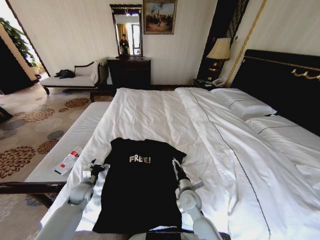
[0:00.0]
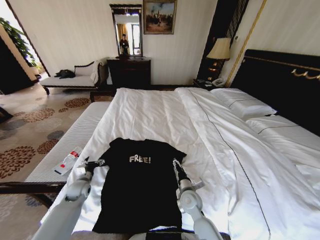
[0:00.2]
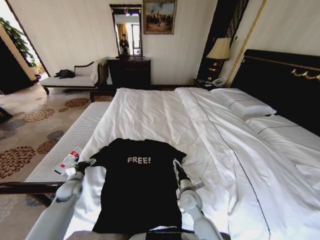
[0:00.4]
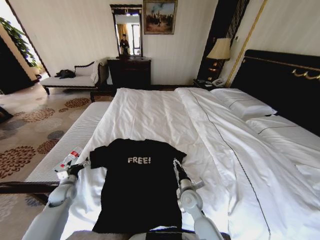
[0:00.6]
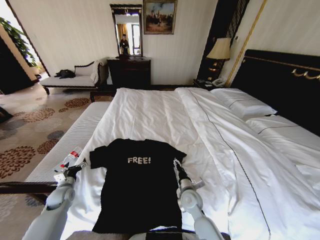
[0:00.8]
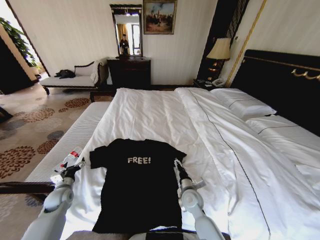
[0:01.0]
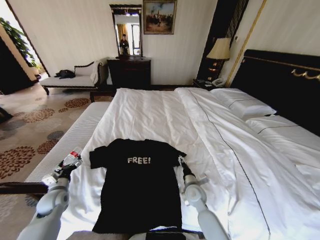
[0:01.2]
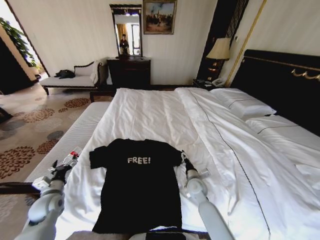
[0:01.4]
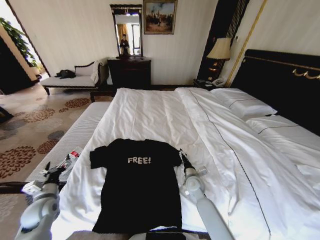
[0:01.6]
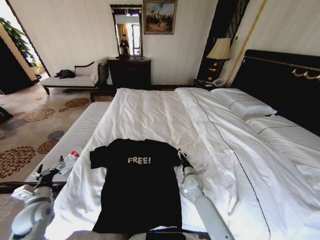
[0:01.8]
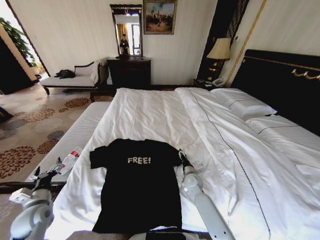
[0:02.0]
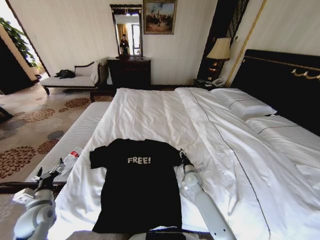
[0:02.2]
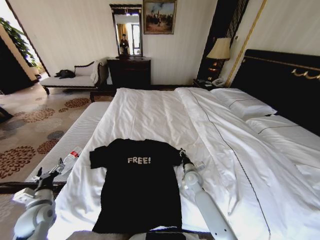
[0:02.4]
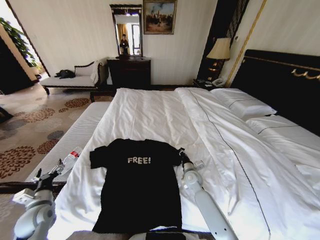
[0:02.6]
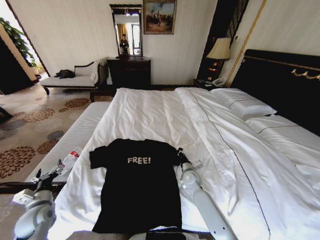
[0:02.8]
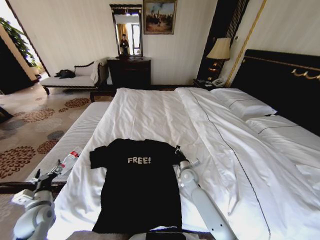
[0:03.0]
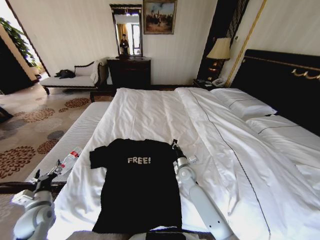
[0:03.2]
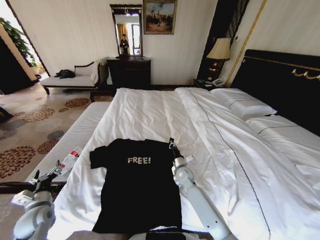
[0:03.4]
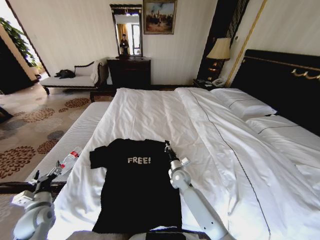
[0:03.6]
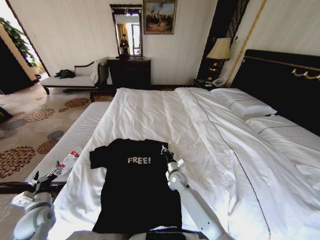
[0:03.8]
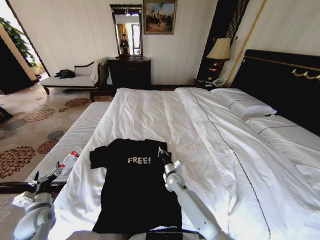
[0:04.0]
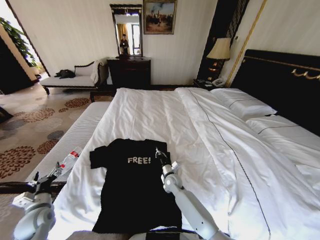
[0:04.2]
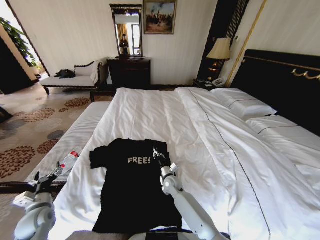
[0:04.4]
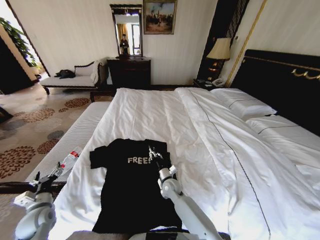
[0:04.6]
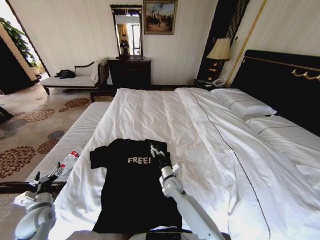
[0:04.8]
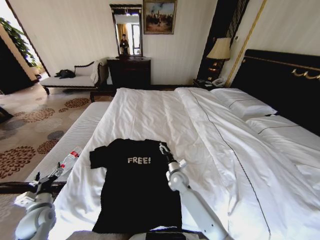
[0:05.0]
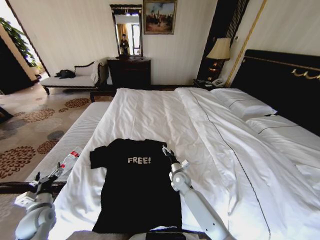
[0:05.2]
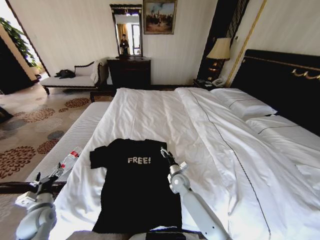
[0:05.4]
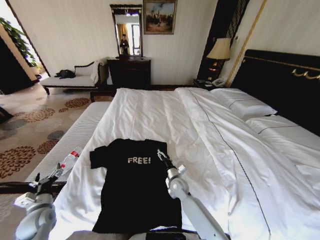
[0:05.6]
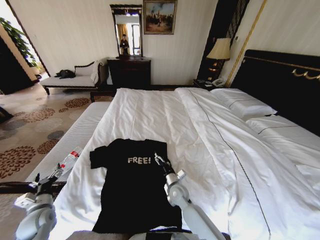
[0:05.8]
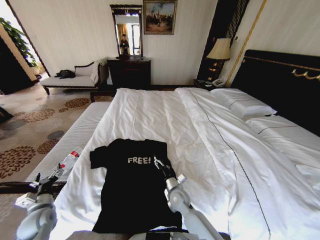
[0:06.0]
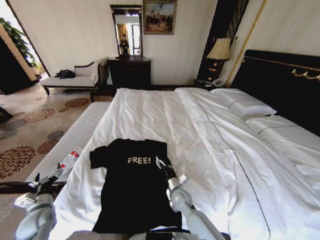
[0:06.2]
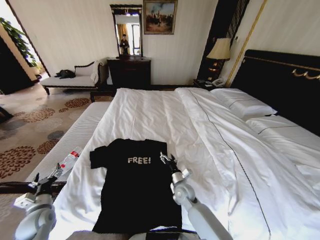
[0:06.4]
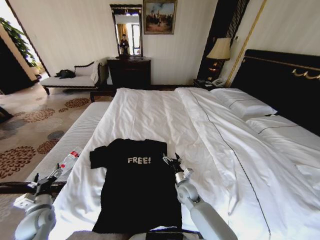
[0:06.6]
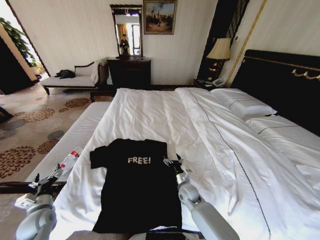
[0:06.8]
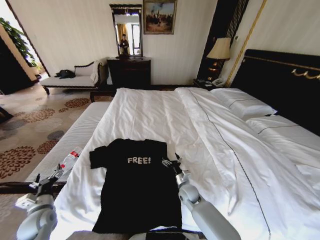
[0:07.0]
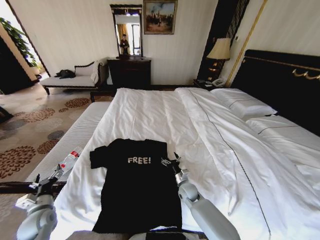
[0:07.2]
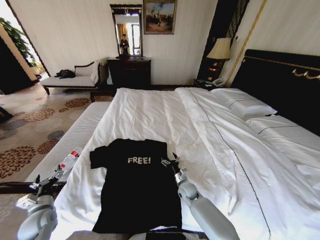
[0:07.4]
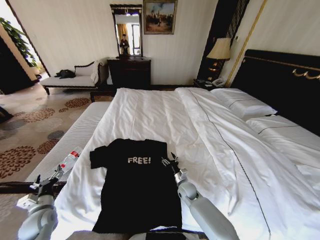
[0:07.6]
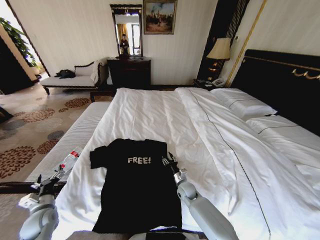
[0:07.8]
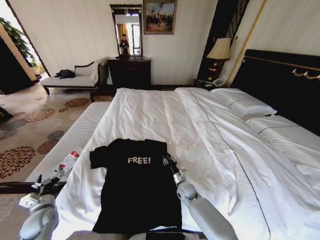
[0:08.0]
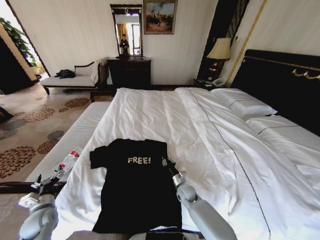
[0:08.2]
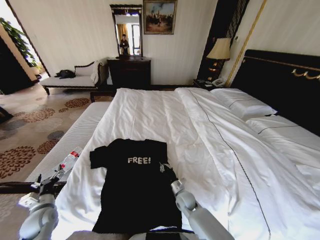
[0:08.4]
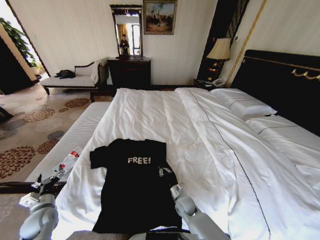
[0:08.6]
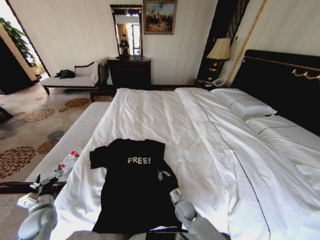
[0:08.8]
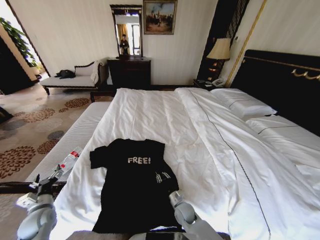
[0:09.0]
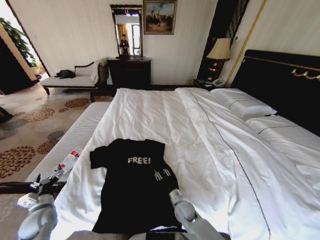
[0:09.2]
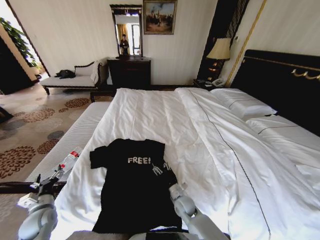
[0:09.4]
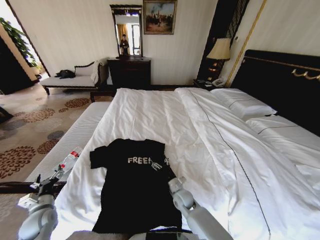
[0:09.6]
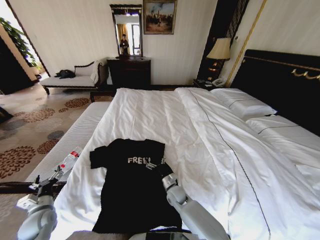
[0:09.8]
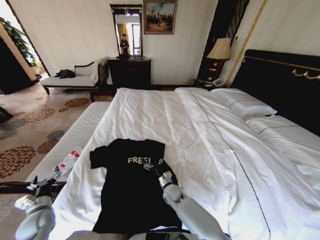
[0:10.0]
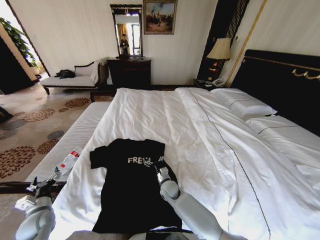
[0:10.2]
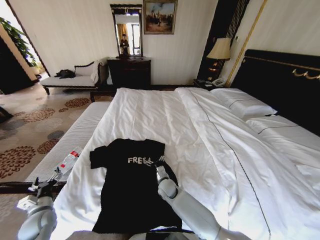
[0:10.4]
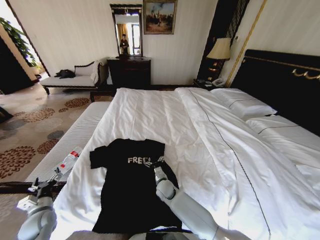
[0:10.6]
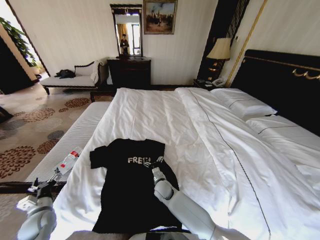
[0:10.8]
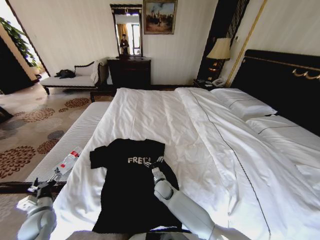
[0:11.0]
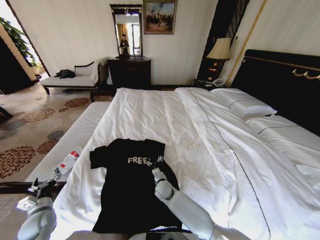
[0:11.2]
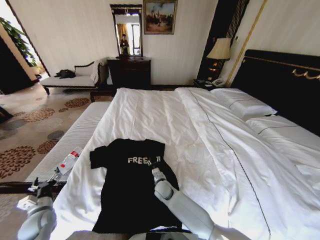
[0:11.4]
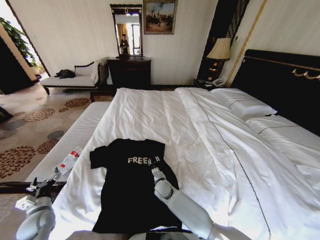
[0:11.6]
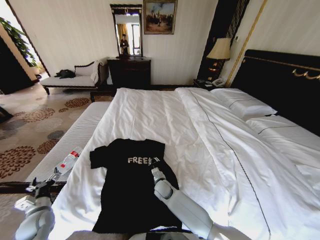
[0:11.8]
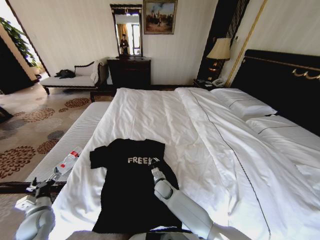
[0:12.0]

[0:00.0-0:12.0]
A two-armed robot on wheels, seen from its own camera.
Task of the whole recording: Fold the clothes on the bed.
0:00.0 to 0:01.6: The right gripper travels forward by approximately 5 cm, while the left gripper is displaced backward, upward and to the left by approximately 15 cm.
0:01.6 to 0:03.0: The right gripper closes its fingers.
0:03.0 to 0:04.4: The right gripper travels to the left and downward by some 10 cm.
0:04.4 to 0:06.0: The right gripper heads backward, covering about 10 cm, and opens up.
0:06.0 to 0:07.6: The right gripper shifts about 10 cm to the right and forward.
0:07.6 to 0:09.0: The right gripper travels backward by some 10 cm, and closes.
0:09.0 to 0:10.4: The right gripper shifts some 15 cm forward, to the left and upward, and opens up.
0:10.4 to 0:12.0: The right gripper closes.

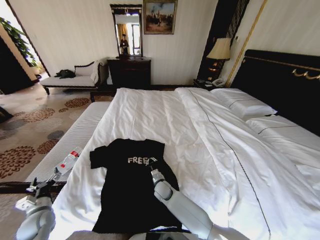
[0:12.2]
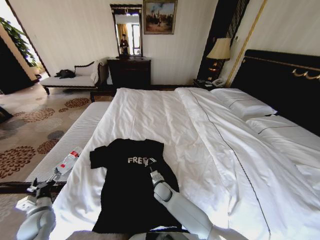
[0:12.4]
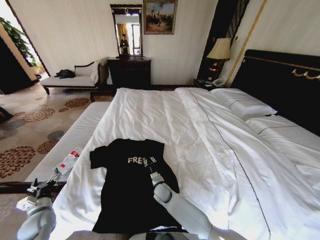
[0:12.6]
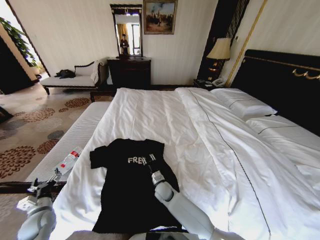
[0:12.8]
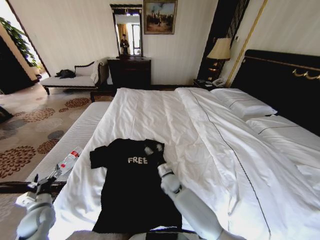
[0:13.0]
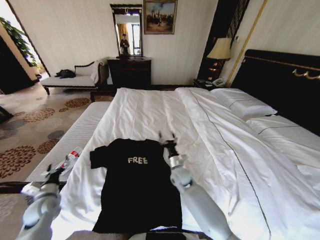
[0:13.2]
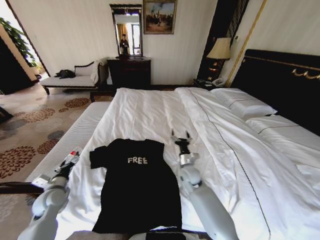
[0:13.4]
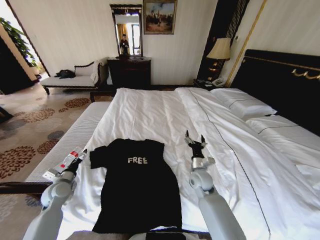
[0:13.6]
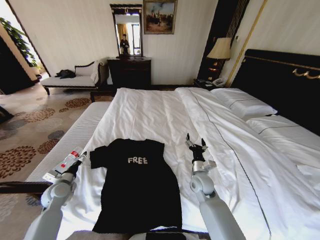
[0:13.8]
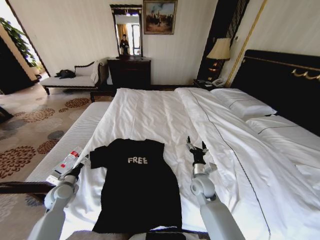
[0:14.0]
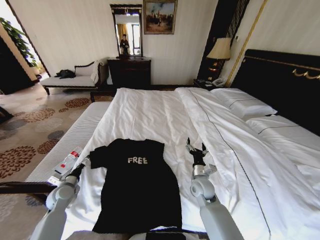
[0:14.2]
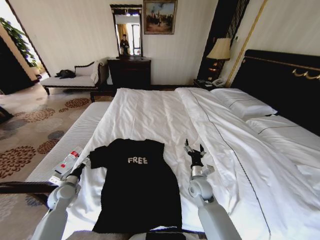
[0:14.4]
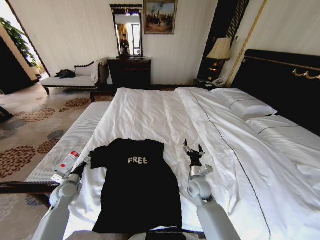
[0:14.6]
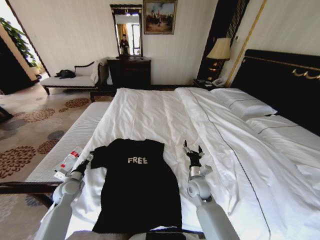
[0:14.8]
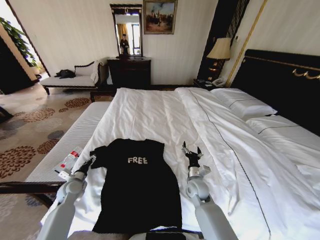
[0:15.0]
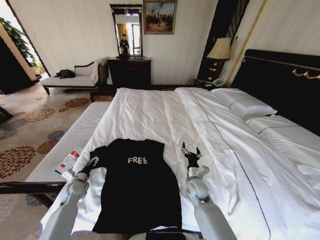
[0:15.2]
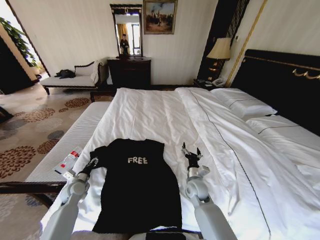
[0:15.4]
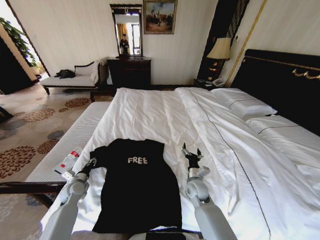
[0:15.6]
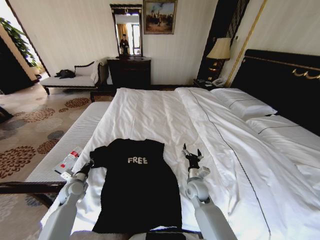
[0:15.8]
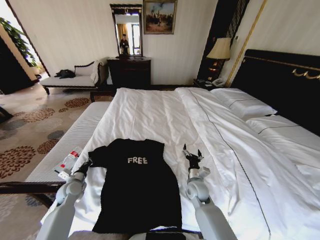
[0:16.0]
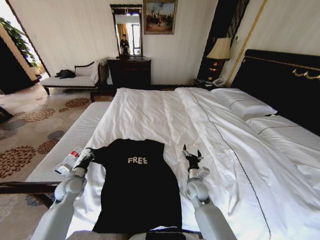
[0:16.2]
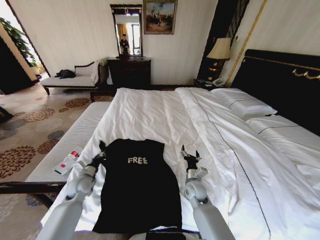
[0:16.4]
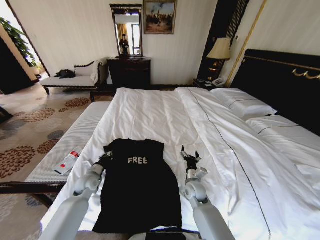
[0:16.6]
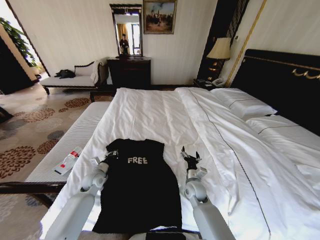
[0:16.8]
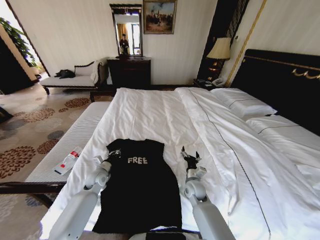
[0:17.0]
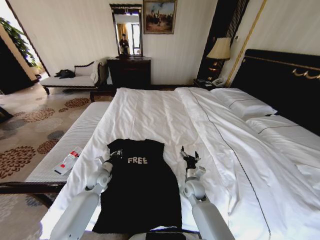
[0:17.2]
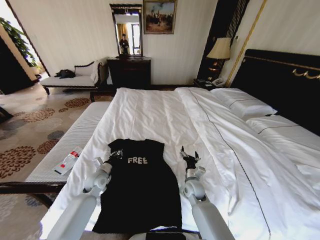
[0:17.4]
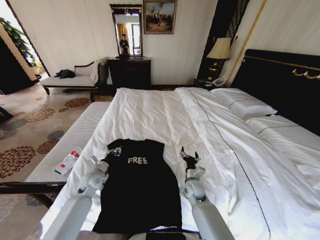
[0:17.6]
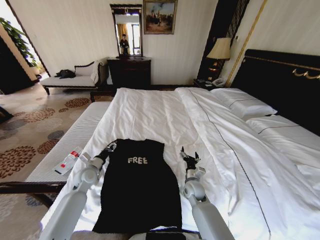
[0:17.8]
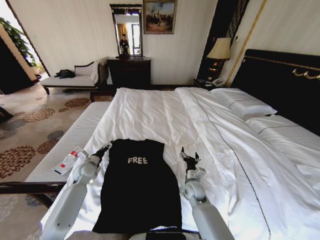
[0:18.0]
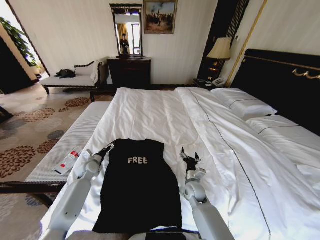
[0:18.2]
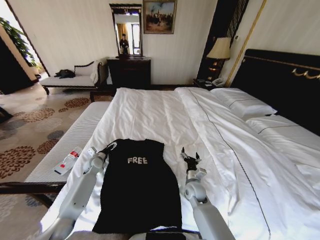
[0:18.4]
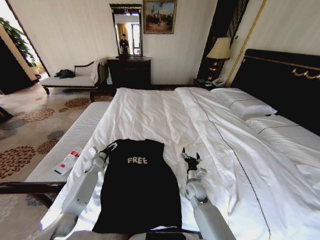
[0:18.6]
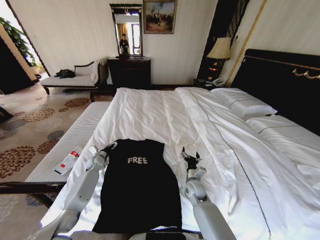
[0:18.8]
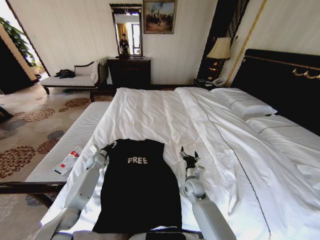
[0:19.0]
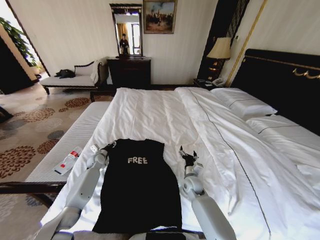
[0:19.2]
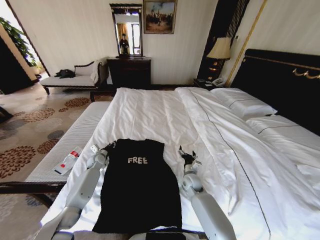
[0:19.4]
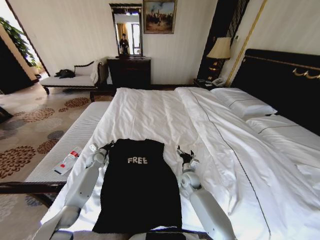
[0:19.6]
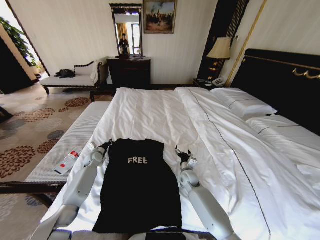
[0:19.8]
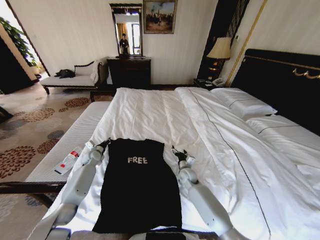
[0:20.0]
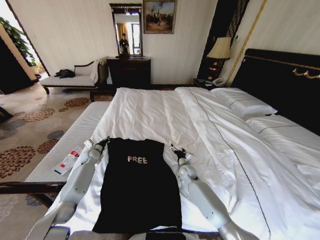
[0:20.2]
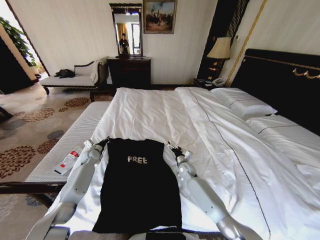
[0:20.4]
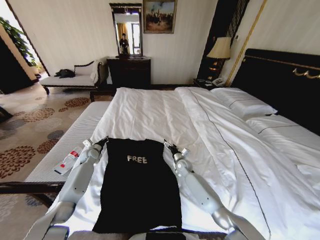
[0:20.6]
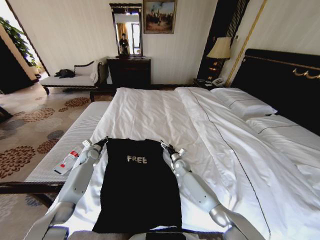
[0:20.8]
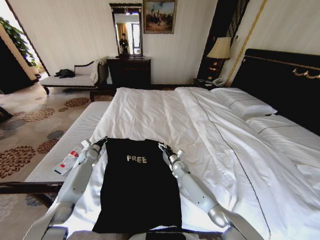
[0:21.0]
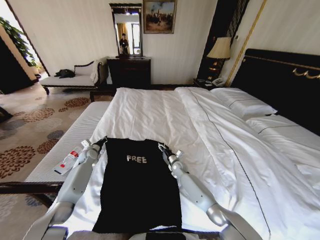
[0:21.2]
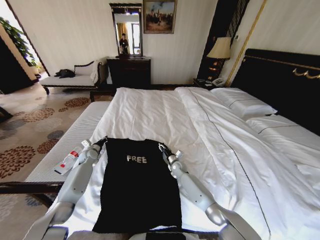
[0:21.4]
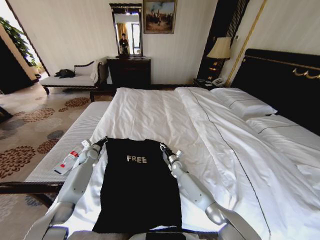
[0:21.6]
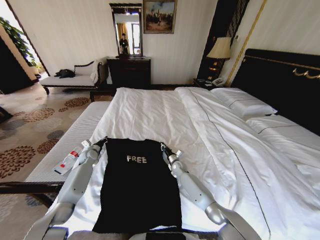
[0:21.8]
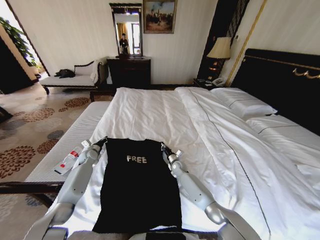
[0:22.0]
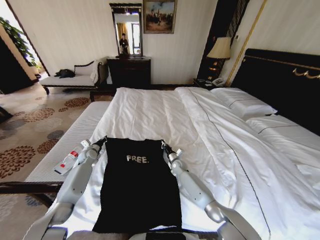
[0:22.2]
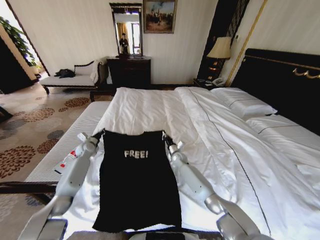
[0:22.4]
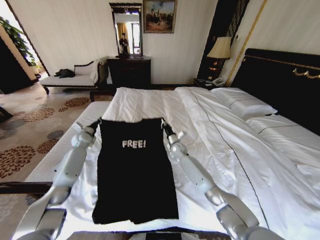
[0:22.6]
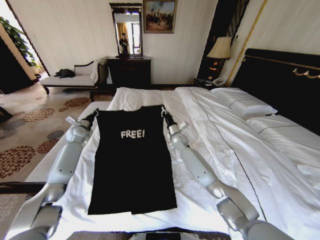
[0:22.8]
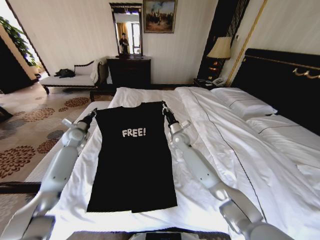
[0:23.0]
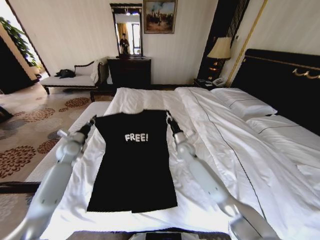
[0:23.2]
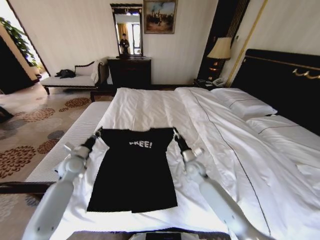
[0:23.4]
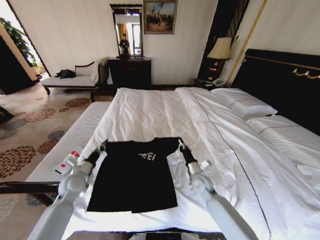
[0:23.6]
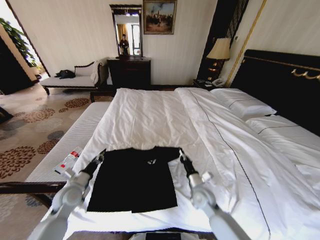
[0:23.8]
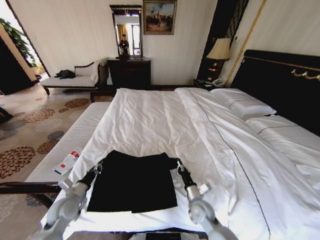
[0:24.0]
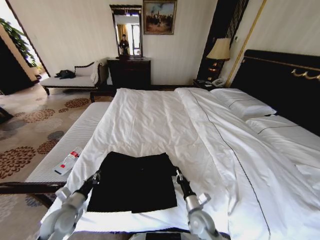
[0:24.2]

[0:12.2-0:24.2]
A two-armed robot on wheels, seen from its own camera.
Task of the whole recording: Fold the clothes on the bed.
0:12.2 to 0:13.8: The left gripper shifts some 10 cm forward. The right gripper goes some 20 cm to the right and upward, and opens.
0:13.8 to 0:15.2: The left gripper moves approximately 5 cm.
0:15.2 to 0:16.6: The left gripper shifts approximately 5 cm to the right, and closes its fingers.
0:16.6 to 0:18.2: The left gripper moves forward, some 10 cm, and opens its fingers.
0:18.2 to 0:19.8: Both grippers travel together forward, approximately 5 cm. The left gripper closes.
0:19.8 to 0:21.2: The right gripper goes approximately 10 cm forward.
0:21.2 to 0:22.6: The left gripper moves upward, roughly 10 cm, while the right gripper goes roughly 15 cm upward and forward, and closes up.
0:22.6 to 0:24.2: Both grippers move backward, about 35 cm.
